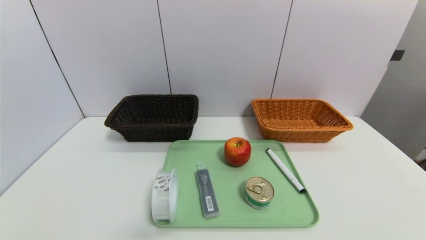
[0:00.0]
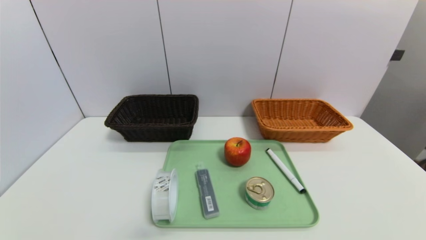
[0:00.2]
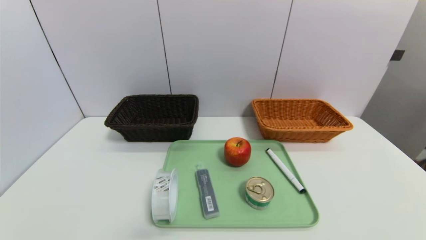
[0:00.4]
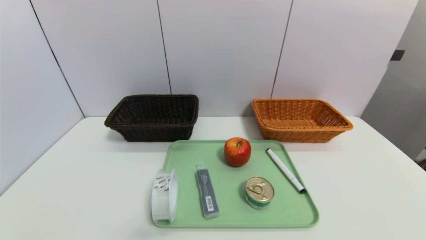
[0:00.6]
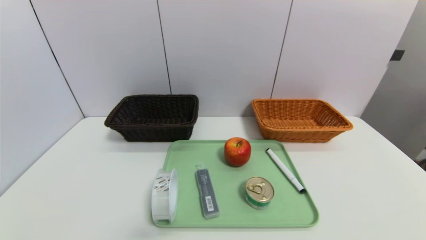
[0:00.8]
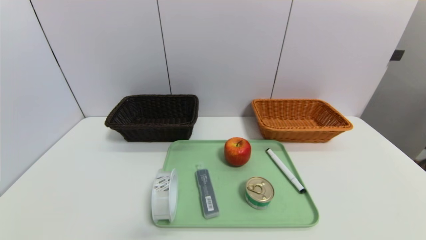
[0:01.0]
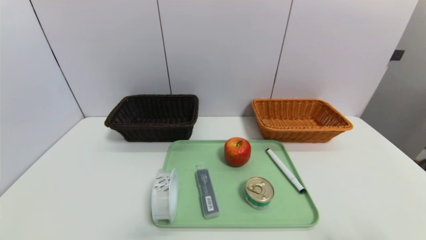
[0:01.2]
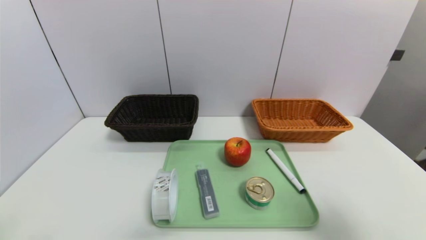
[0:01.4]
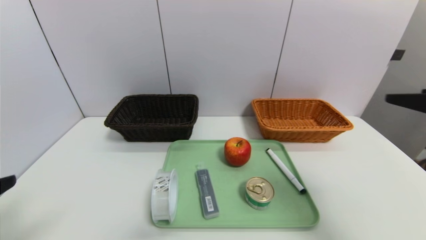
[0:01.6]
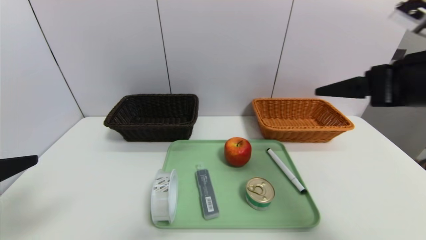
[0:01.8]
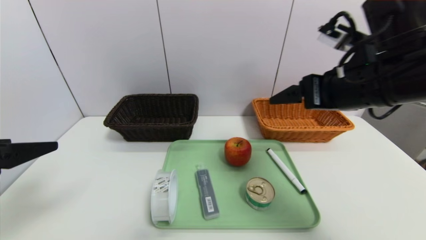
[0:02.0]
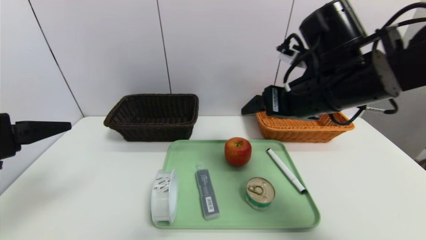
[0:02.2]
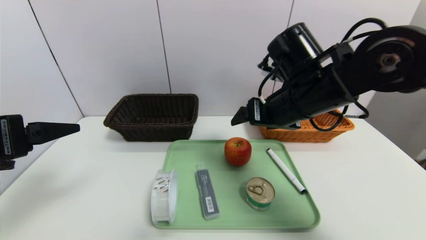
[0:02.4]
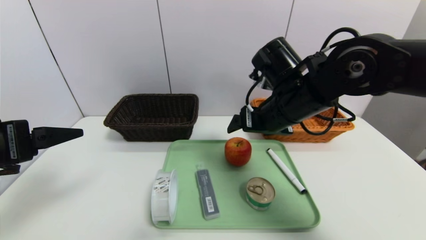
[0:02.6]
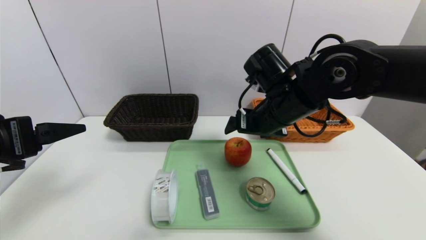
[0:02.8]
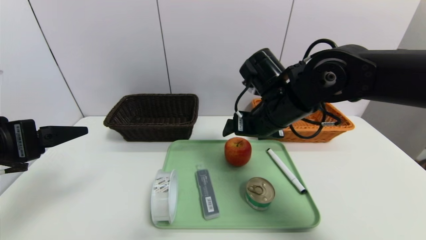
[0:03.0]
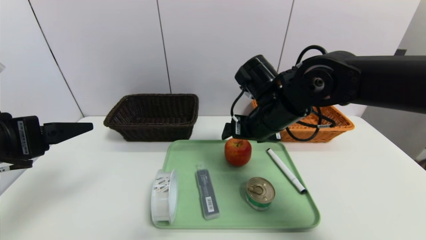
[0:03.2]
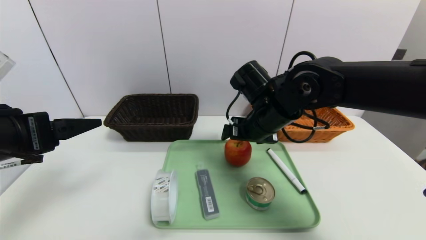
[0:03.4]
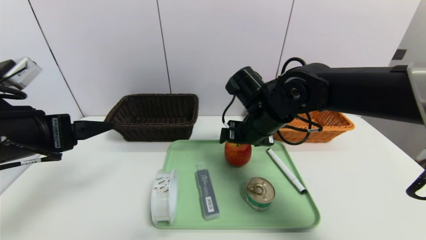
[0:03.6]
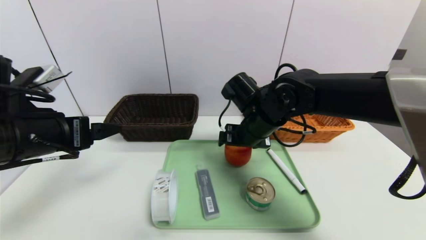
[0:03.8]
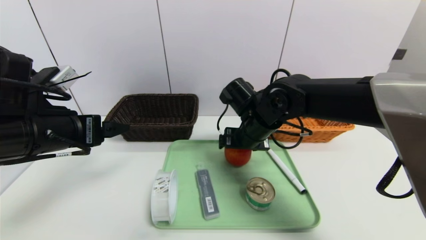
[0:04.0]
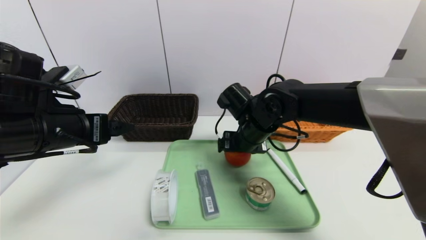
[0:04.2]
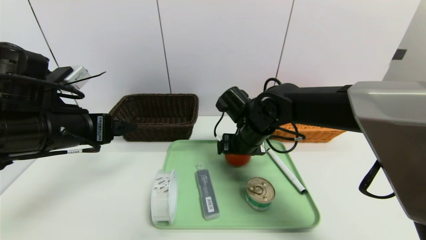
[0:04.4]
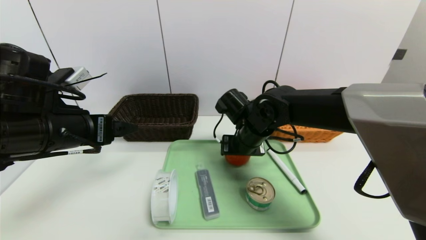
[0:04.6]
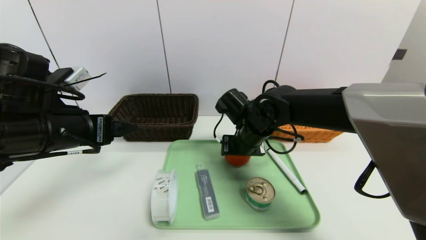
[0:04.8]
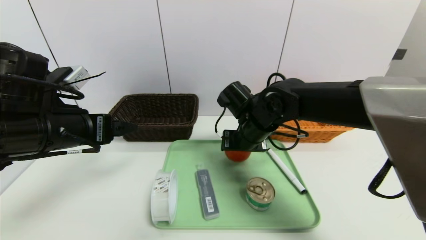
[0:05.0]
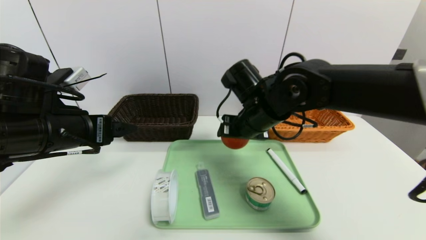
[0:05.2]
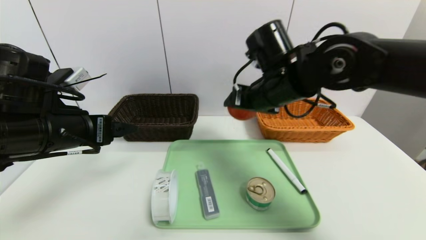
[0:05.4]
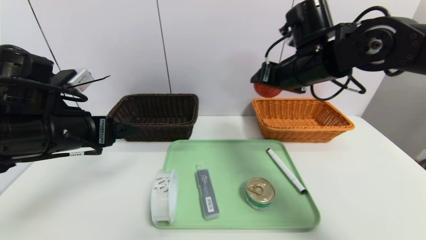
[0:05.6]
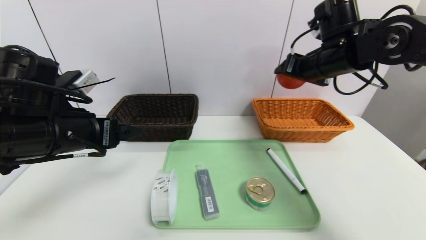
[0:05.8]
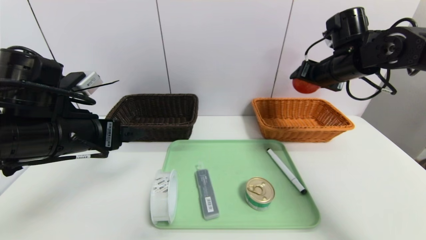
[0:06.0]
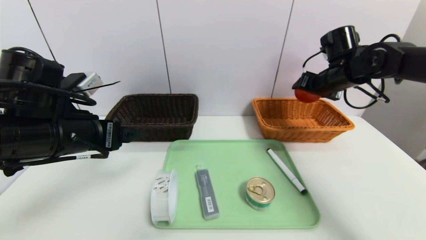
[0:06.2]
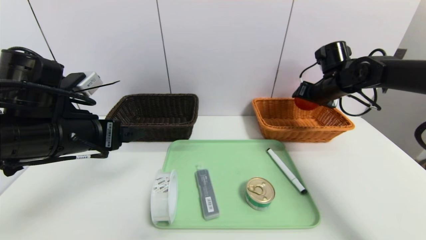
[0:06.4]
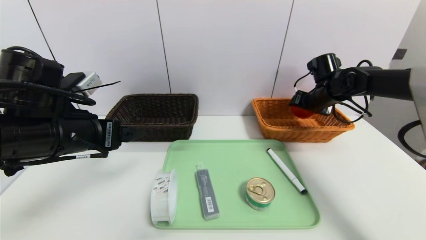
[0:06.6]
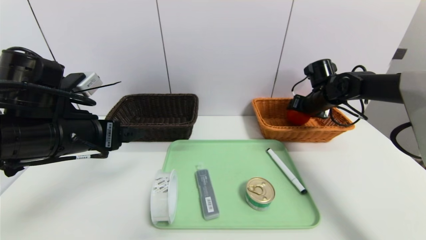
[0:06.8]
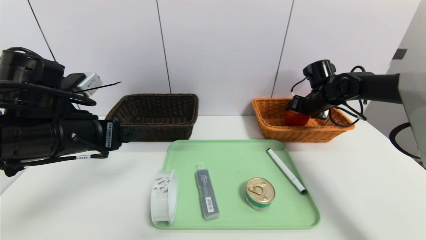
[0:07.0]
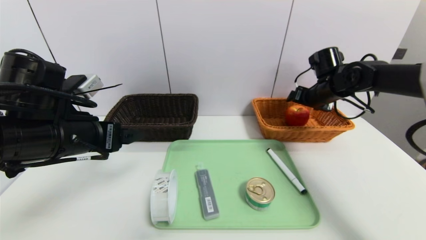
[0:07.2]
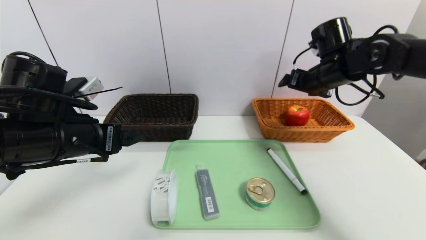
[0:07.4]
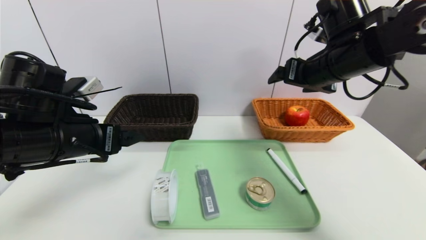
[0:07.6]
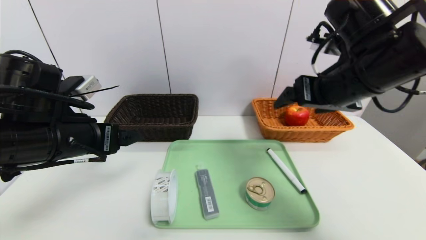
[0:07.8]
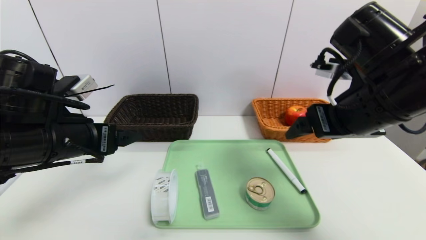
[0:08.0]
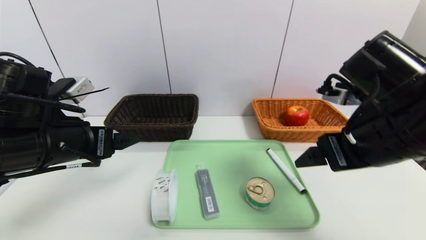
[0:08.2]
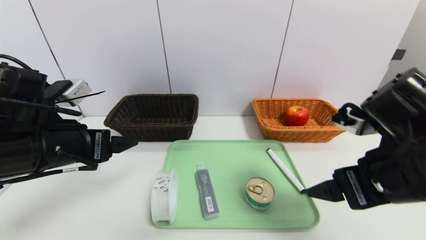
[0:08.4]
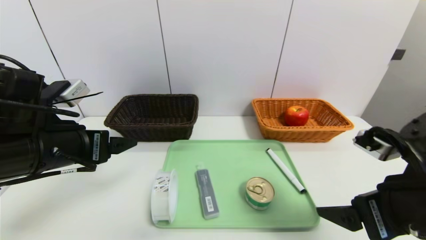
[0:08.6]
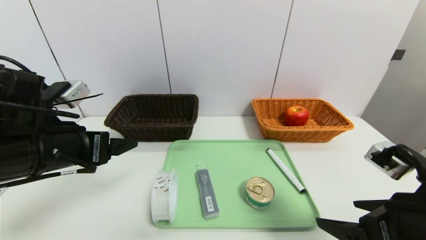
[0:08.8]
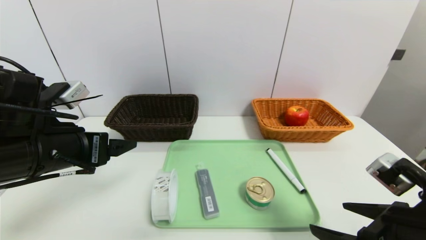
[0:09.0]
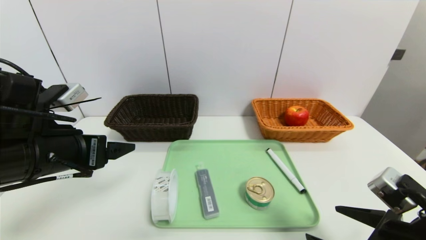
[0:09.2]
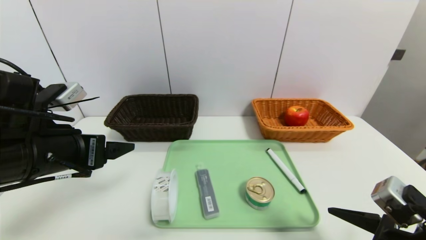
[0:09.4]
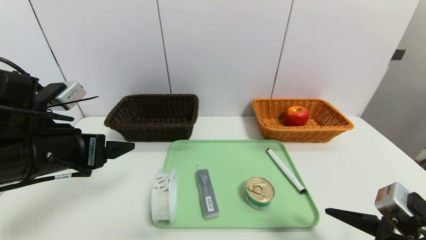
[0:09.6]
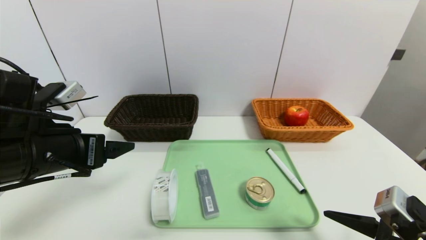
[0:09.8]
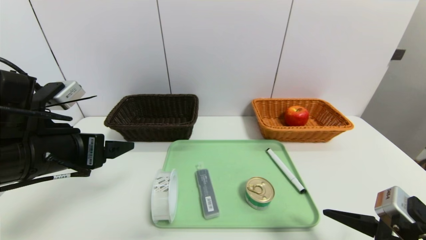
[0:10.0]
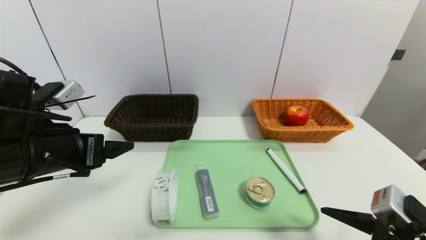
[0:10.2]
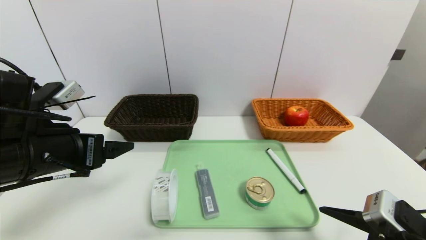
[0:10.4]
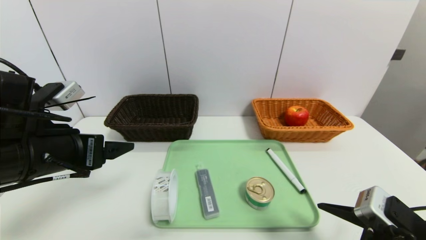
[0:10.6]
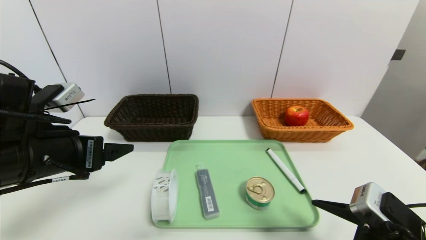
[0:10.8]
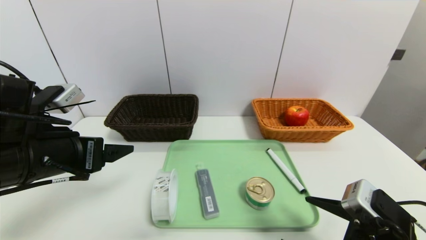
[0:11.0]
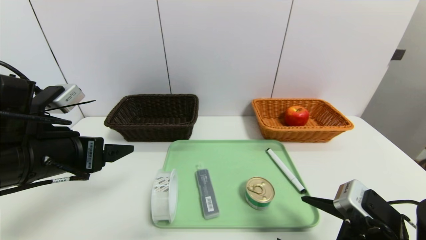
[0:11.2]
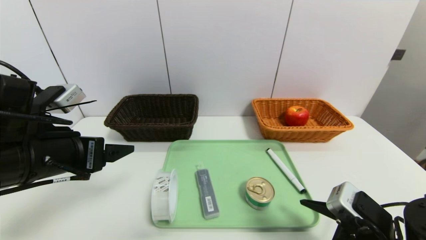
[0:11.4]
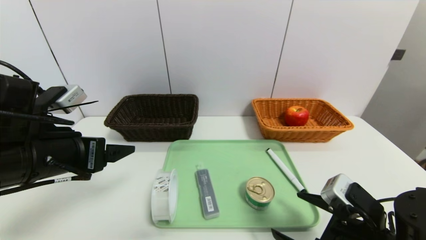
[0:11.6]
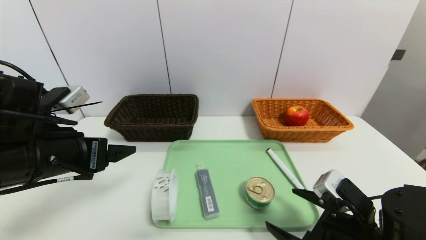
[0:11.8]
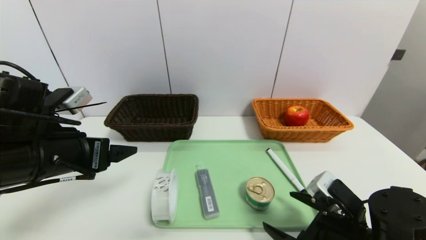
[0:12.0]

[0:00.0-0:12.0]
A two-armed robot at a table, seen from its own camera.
Task of the whole recording: place the food in the right basket with the right gripper, and place the non food items in the left basket with the left gripper.
Step, 0:00.0 to 0:07.2: Grasp the apple and put it in the right basket.
0:00.0 to 0:01.6: The left gripper moves upward, some 20 cm; the right gripper travels upward and forward by some 30 cm.
0:01.6 to 0:03.0: The right gripper is displaced to the left, forward and downward by roughly 25 cm. Meanwhile the left gripper goes roughly 10 cm forward.
0:03.0 to 0:04.4: The left gripper heads forward, covering some 5 cm. The right gripper shifts about 5 cm downward.
0:04.4 to 0:06.0: The right gripper goes about 25 cm to the right and upward.
0:06.0 to 0:07.6: The right gripper heads backward and to the left, covering approximately 10 cm.
0:07.6 to 0:09.0: The right gripper is displaced backward and downward by approximately 25 cm.
0:10.4 to 0:12.0: The right gripper moves roughly 5 cm.

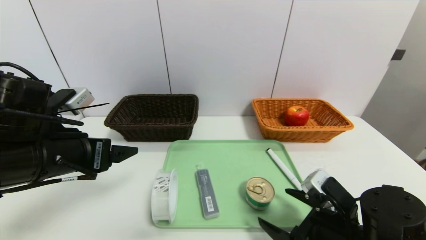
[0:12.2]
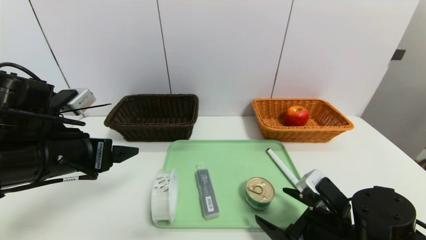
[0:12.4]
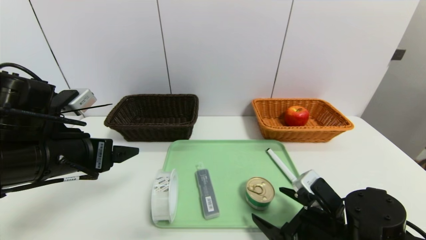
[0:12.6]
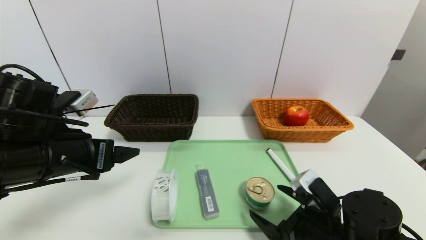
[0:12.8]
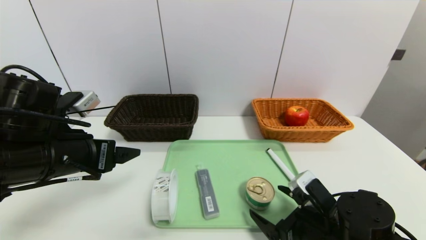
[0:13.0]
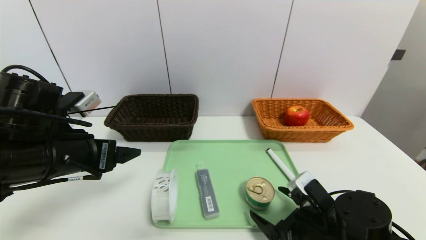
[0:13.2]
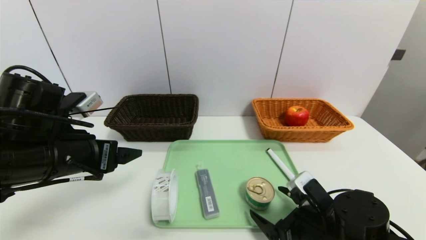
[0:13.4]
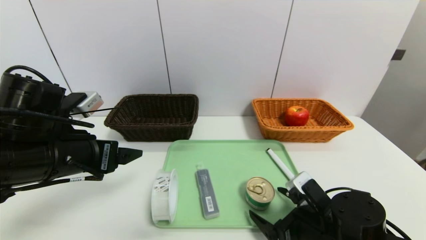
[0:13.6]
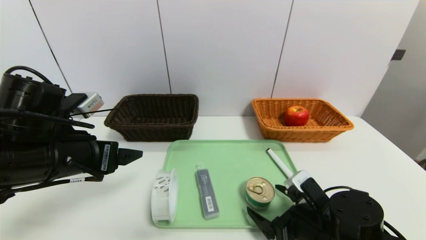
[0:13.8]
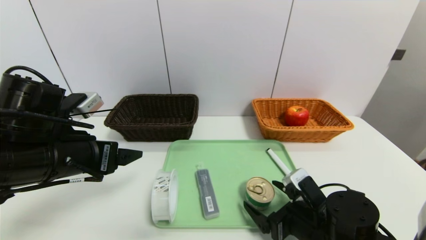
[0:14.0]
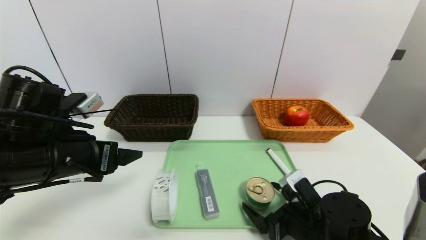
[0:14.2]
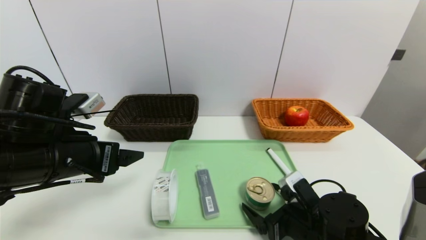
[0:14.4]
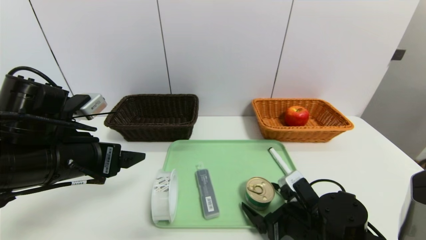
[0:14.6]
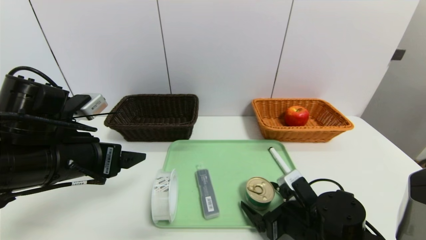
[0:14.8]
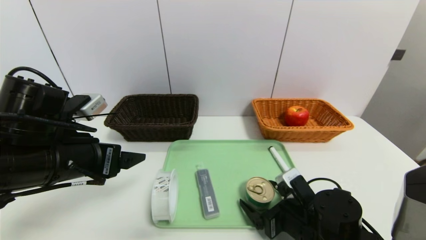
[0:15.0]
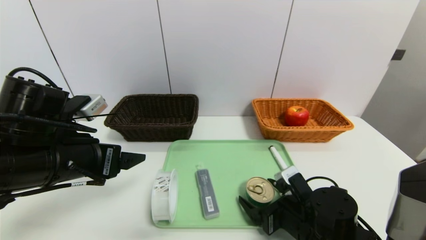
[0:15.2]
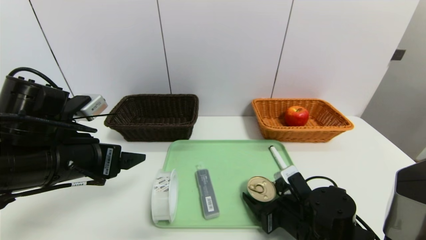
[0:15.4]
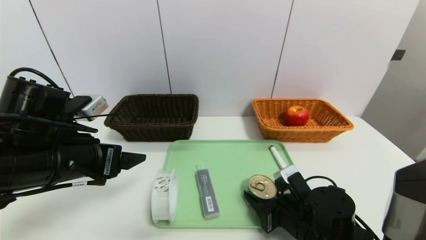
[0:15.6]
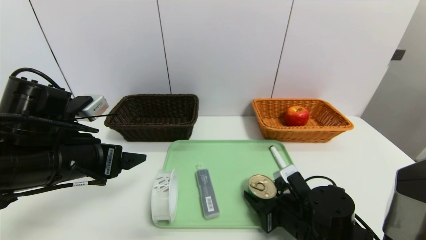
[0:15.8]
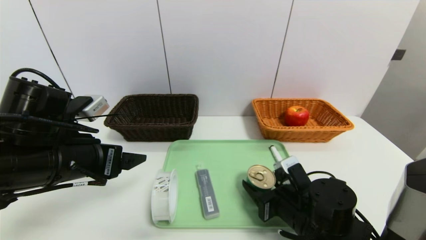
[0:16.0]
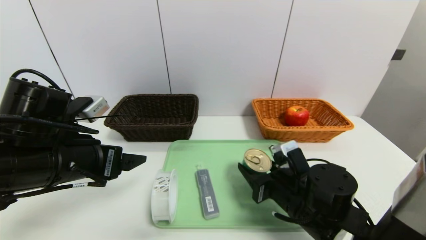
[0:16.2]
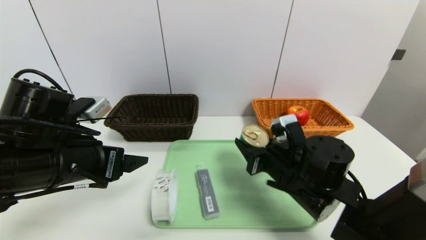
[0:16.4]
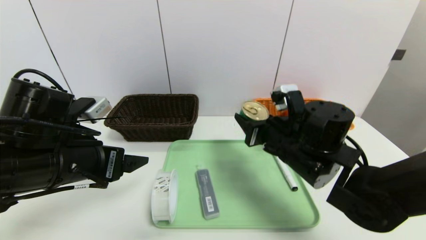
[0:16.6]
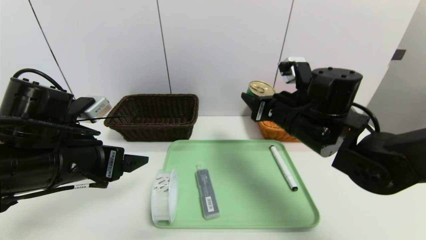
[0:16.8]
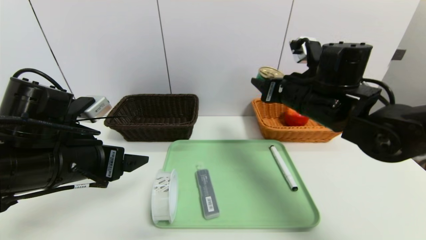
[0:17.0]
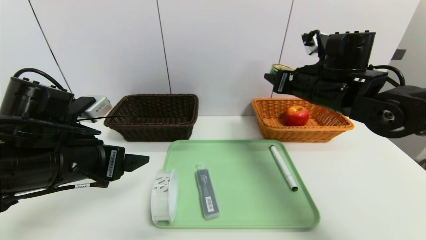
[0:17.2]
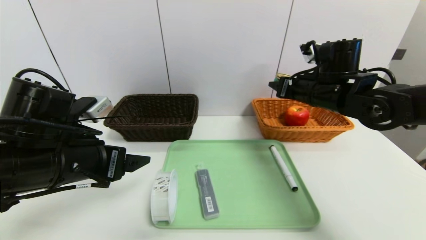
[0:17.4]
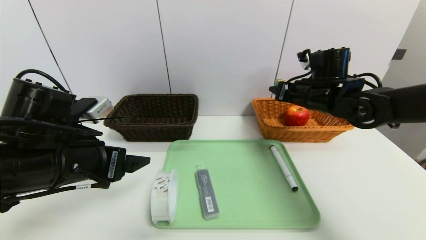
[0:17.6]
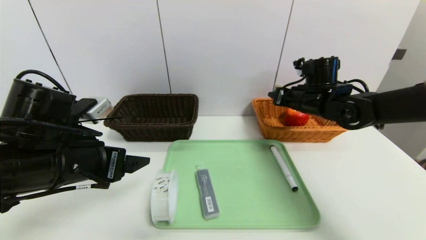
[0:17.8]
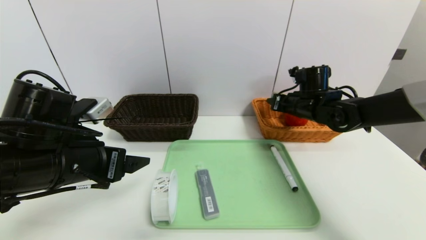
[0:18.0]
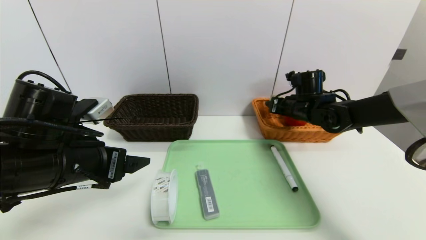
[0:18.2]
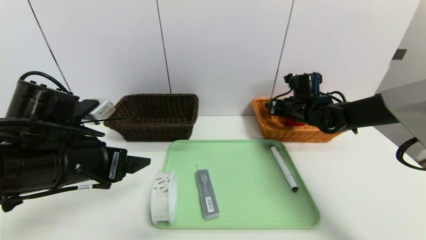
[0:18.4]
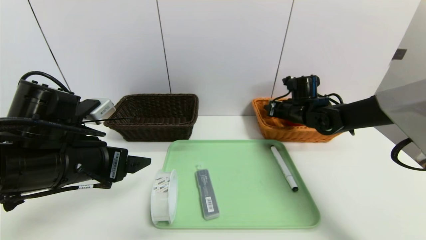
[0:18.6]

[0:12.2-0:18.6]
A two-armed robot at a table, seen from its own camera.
Task of the whole recording: place the food in the right basket with the right gripper, and place the non food items in the left basket with the left gripper.
0:12.2 to 0:13.8: The grippers make only small movements.
0:13.8 to 0:15.4: There are only small adjustments of the grippers.
0:15.4 to 0:17.0: The right gripper heads upward and forward, covering some 25 cm.
0:17.0 to 0:18.6: The right gripper moves forward, downward and to the right, about 15 cm.
